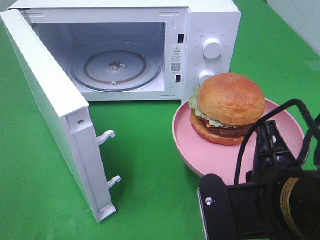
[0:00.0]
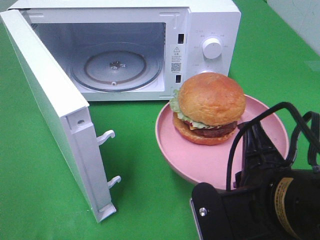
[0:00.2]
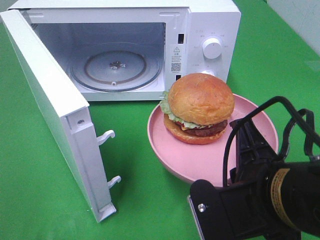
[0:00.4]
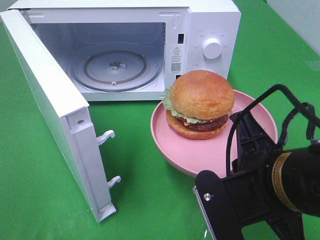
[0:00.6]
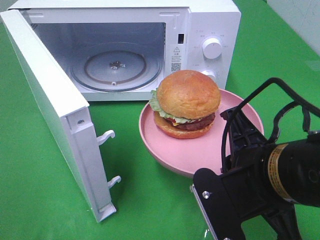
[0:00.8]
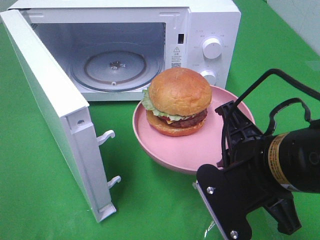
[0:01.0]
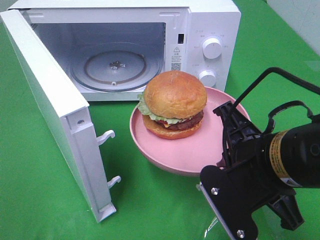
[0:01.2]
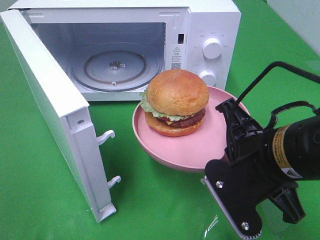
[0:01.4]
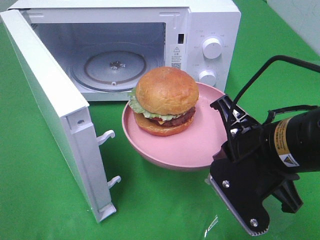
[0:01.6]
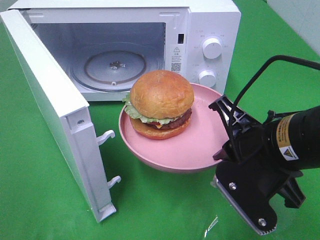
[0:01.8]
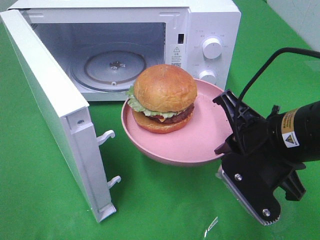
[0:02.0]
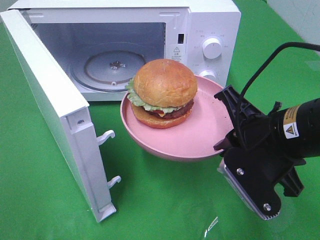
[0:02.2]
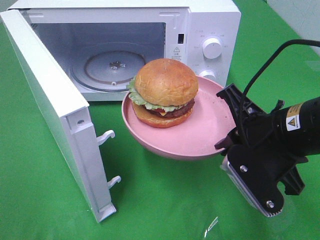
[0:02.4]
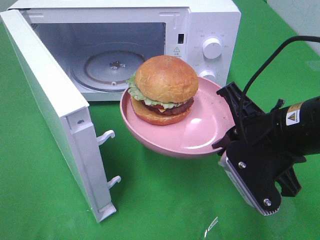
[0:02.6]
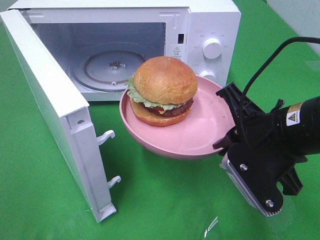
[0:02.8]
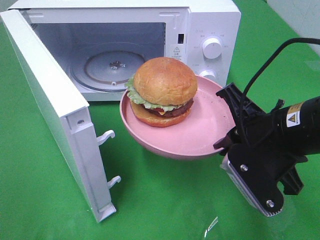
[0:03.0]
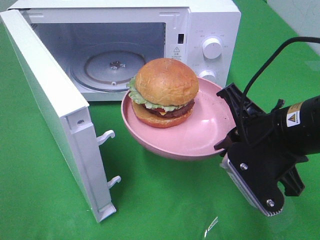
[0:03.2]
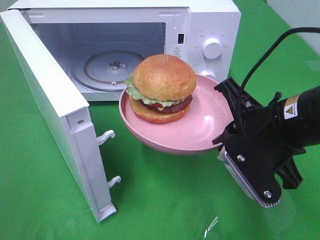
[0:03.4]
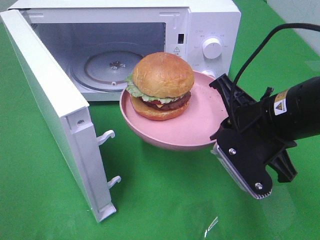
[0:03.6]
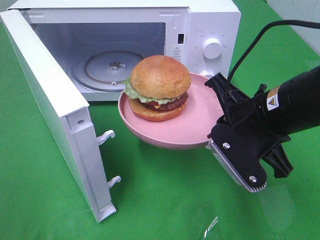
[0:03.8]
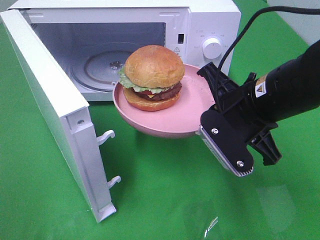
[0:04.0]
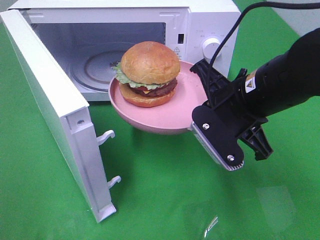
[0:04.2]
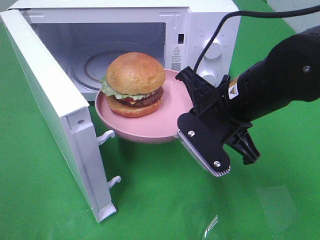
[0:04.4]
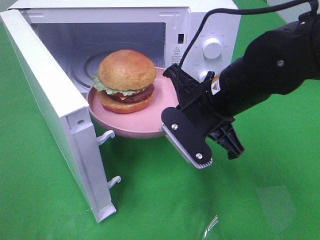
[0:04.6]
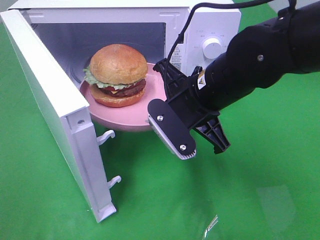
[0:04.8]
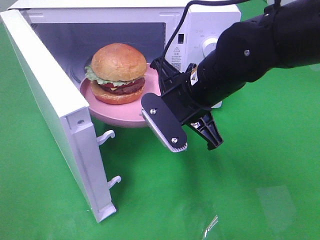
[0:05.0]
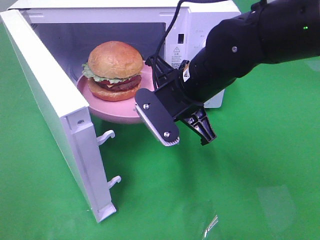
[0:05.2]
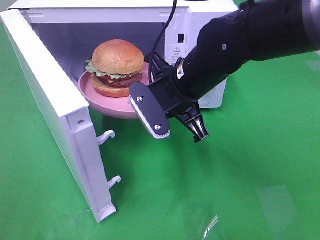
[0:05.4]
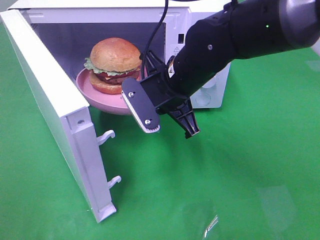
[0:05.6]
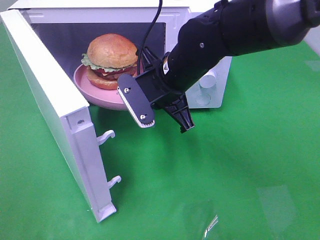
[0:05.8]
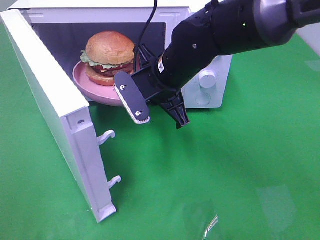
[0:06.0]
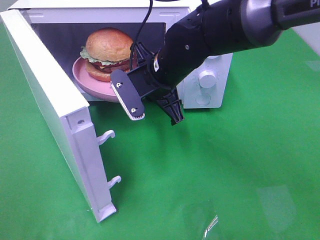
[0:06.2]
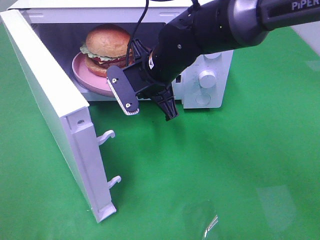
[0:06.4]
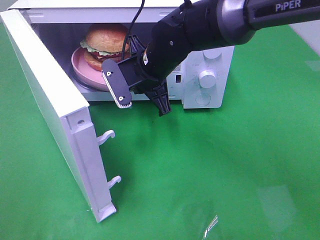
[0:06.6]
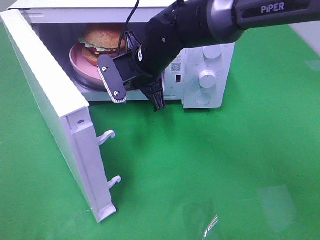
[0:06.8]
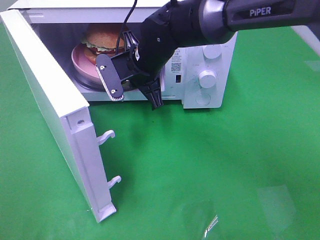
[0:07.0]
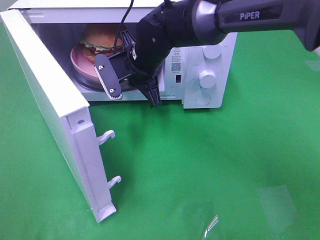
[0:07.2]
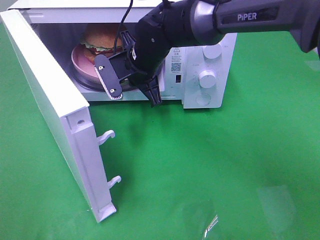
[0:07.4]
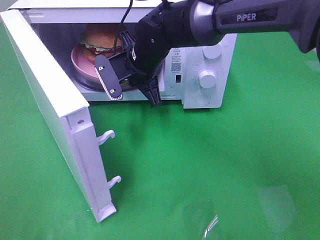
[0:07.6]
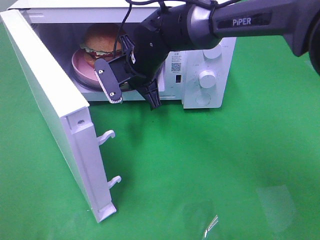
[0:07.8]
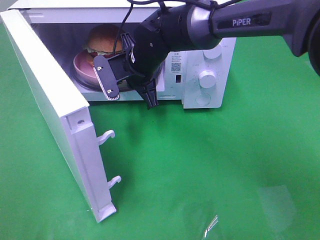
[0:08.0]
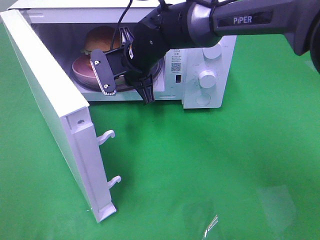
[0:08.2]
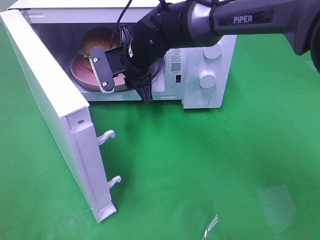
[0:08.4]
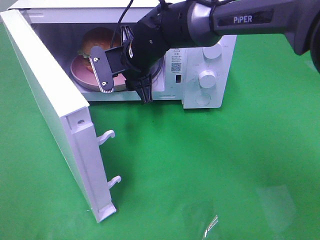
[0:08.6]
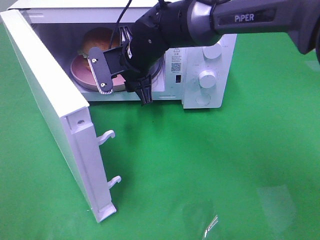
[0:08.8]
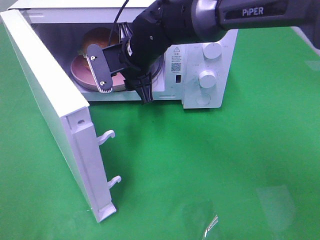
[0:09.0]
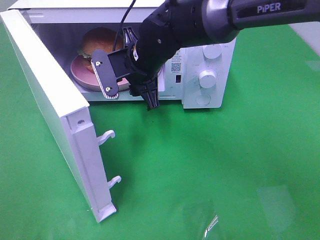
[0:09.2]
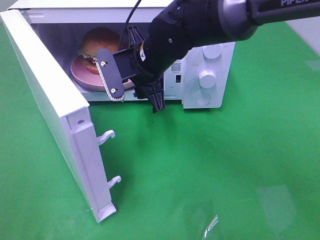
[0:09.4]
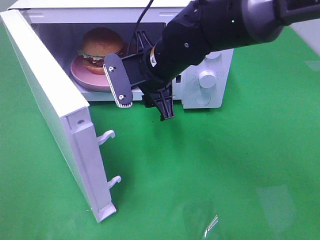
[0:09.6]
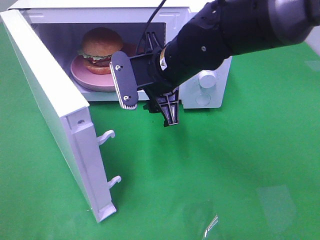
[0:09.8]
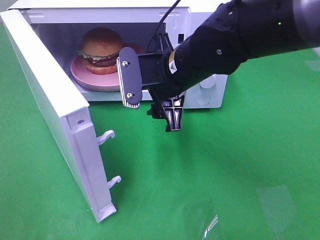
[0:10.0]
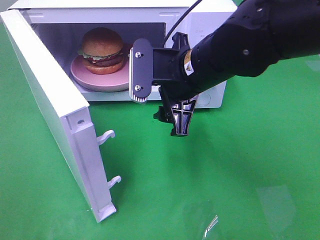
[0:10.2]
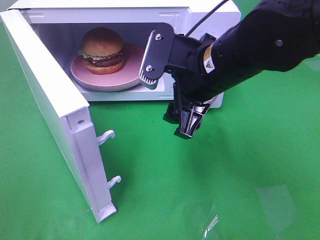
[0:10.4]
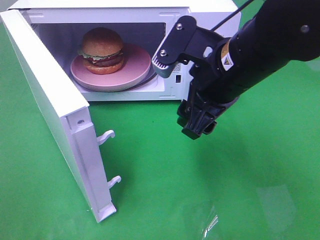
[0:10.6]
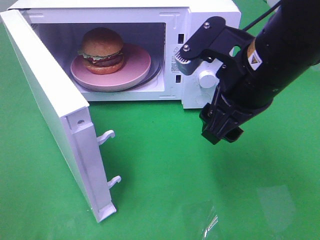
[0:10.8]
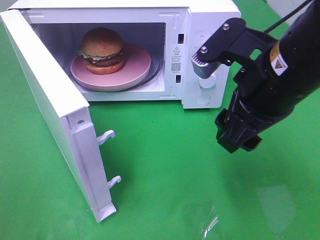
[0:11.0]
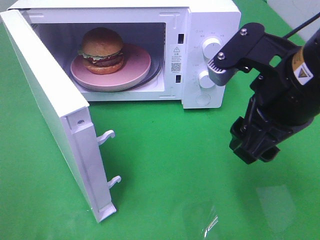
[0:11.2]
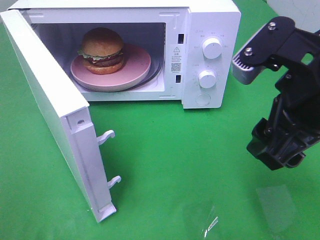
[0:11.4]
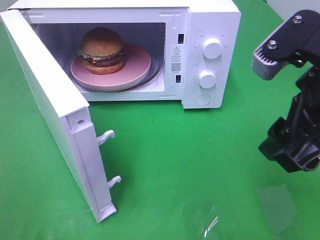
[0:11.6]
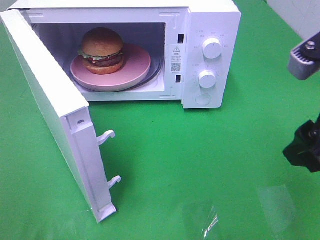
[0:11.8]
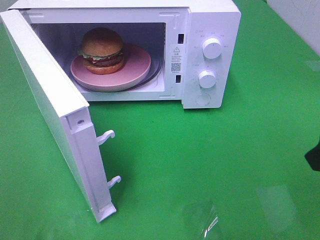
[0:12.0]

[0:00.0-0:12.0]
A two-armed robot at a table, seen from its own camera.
Task of the whole recording: Heat the burger.
Step, 0:00.0 to 0:08.6: Right hand: place the plate in the microwave.
0:00.0 to 0:01.6: The right gripper is displaced forward by about 5 cm.
0:01.6 to 0:03.0: The grippers make only small movements.
0:03.0 to 0:04.4: The right gripper goes about 5 cm to the left.
0:04.4 to 0:06.0: The right gripper goes about 10 cm forward and to the left.
0:06.0 to 0:07.6: The right gripper heads forward, covering roughly 5 cm.
0:07.6 to 0:09.0: The right gripper opens.
0:09.0 to 0:10.4: The right gripper is displaced backward and to the right by about 15 cm.
0:10.4 to 0:12.0: The right gripper travels to the right and backward by some 20 cm.

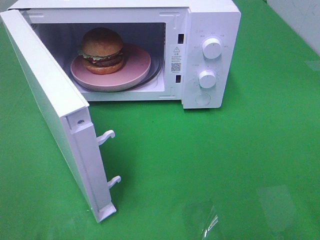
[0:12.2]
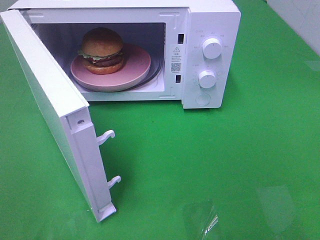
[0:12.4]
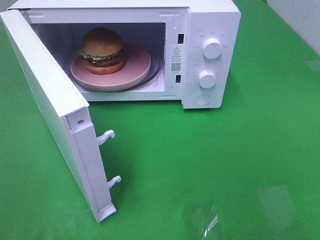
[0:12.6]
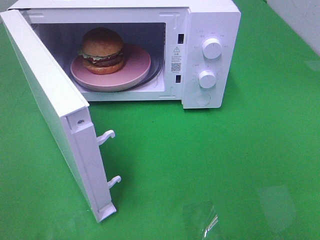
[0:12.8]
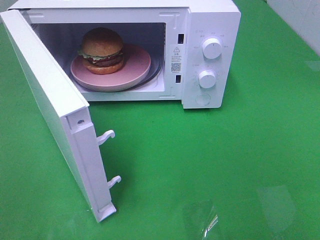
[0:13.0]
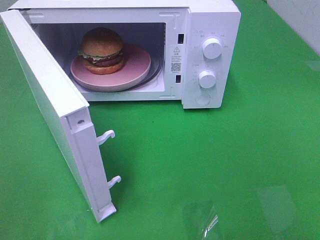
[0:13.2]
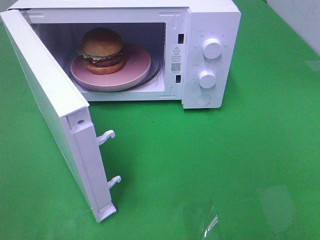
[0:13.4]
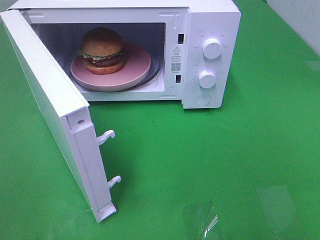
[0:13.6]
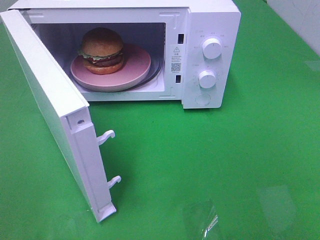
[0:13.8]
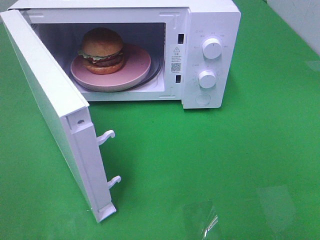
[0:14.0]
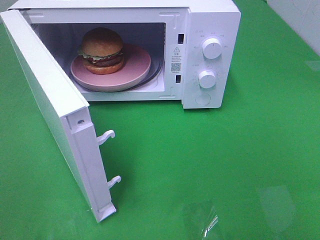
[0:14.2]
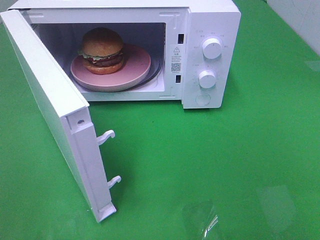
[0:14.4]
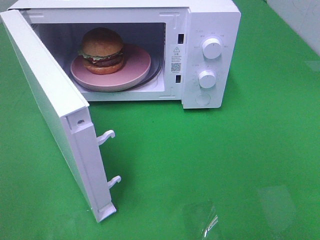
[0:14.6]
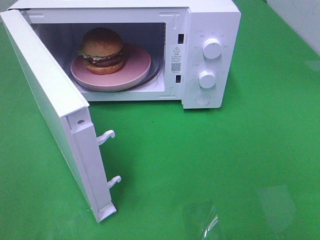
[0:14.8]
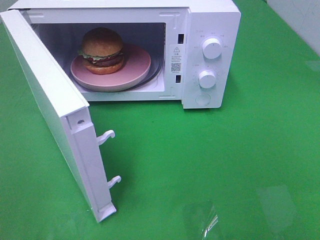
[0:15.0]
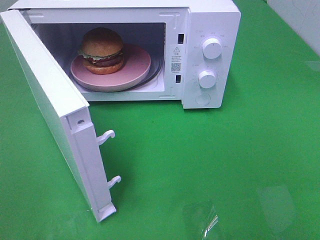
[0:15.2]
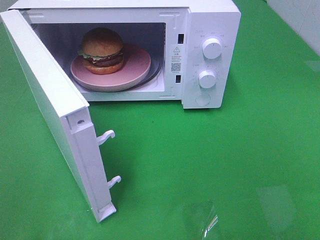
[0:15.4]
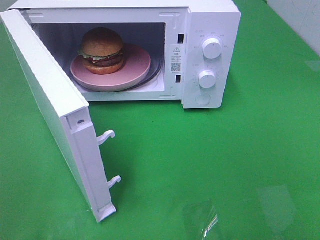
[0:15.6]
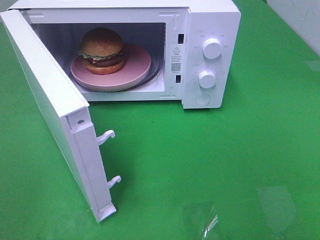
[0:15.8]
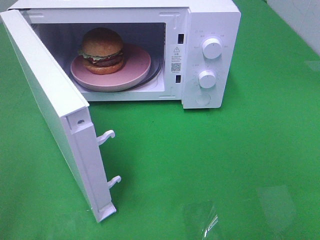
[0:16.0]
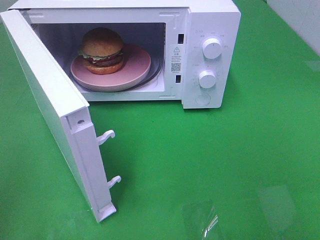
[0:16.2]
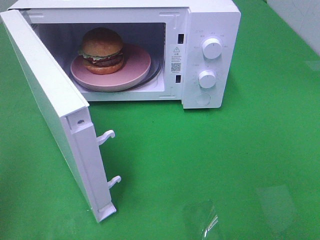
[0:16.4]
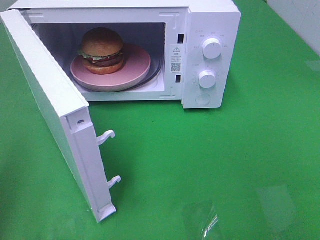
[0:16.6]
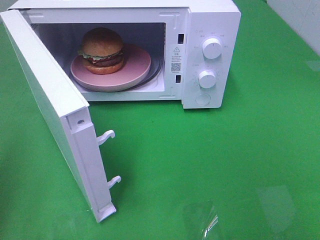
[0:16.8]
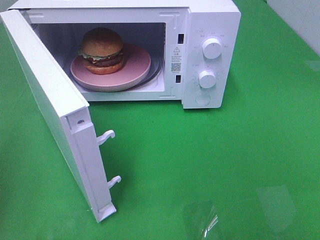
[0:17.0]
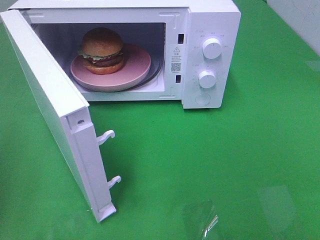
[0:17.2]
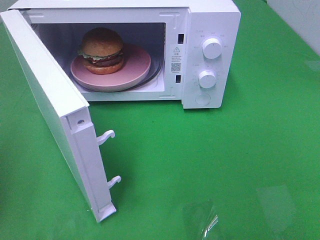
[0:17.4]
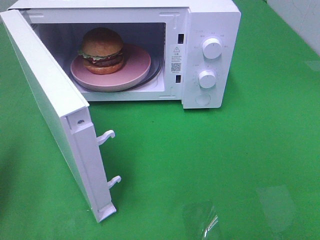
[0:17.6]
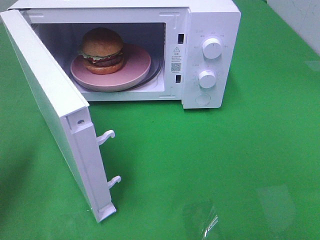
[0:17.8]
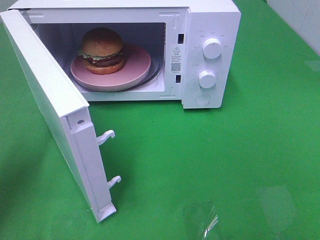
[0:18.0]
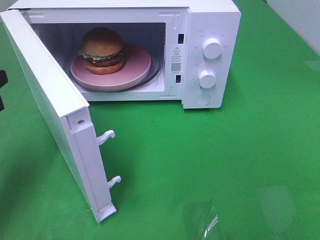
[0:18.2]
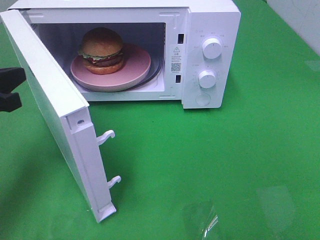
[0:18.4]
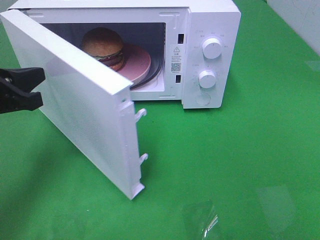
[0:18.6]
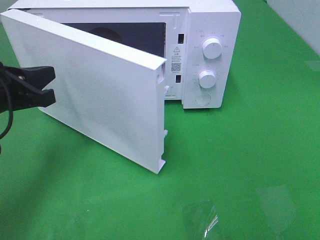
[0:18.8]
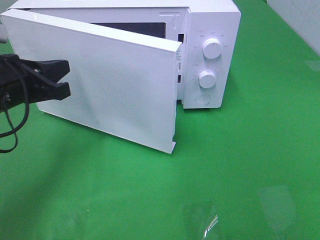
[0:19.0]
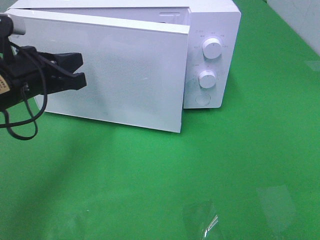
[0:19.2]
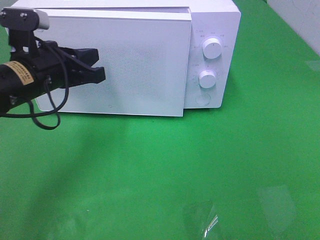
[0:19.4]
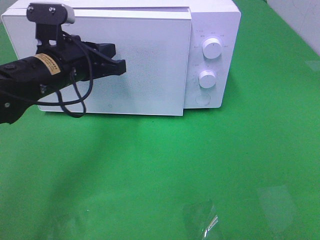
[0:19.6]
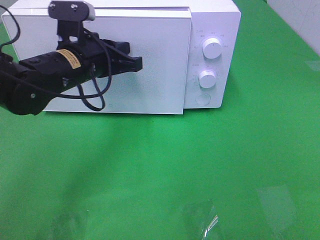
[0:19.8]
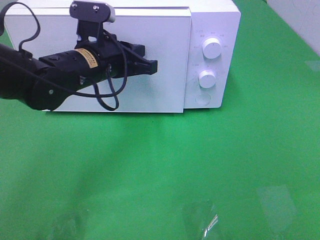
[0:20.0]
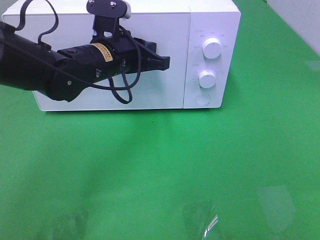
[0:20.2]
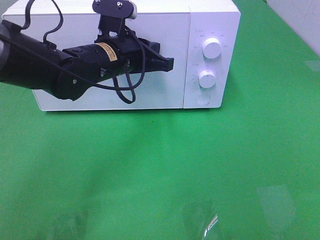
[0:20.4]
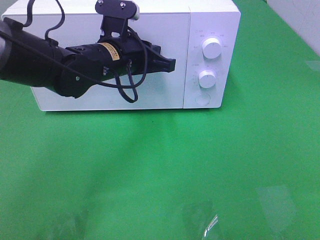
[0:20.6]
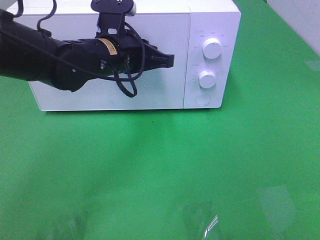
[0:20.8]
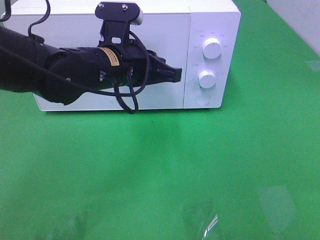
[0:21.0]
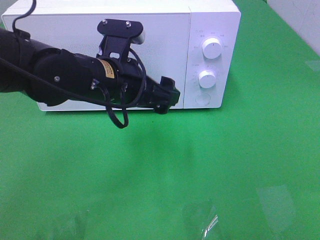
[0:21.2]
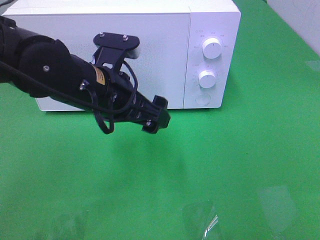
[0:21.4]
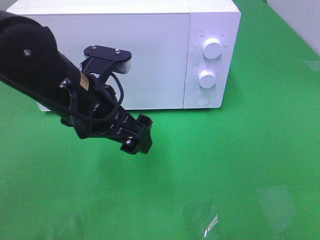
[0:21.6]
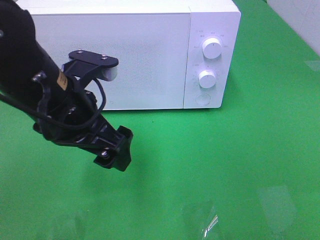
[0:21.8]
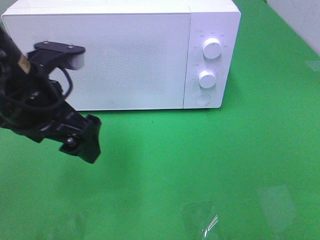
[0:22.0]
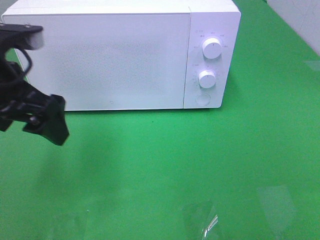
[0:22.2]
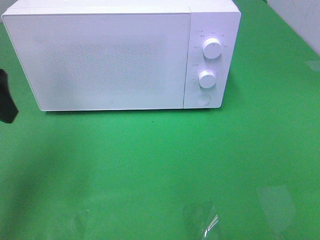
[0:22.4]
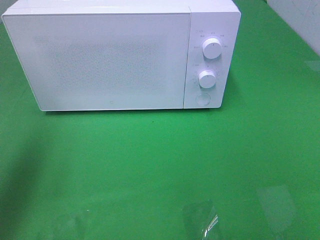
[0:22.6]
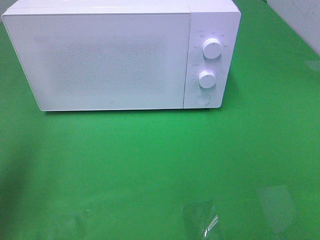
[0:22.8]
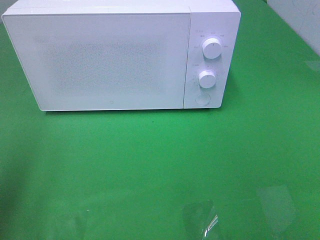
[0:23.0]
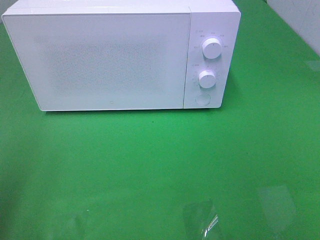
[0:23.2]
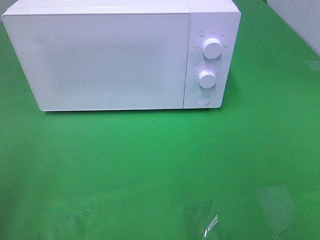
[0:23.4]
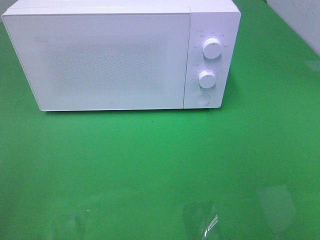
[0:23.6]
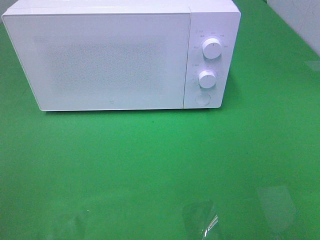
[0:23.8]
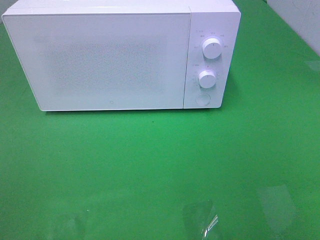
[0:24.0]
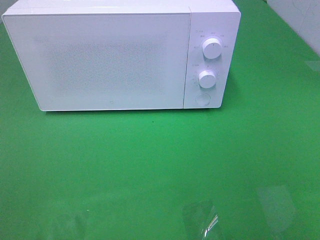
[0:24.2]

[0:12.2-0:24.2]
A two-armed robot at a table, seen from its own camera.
Task of the whole recording: Heat the burger.
Step, 0:12.2 to 0:21.2: Left hand: close the microwave door.
0:13.8 to 0:15.2: Both grippers stay about where they are.
0:16.6 to 0:18.2: The left gripper moves downward and forward, approximately 20 cm.
0:18.2 to 0:19.8: The left gripper moves to the right and forward, approximately 20 cm.
0:19.8 to 0:21.2: The left gripper moves backward, roughly 5 cm, and opens its fingers.
0:21.2 to 0:22.6: The left gripper goes approximately 25 cm to the left and upward.
0:22.6 to 0:24.2: The left gripper heads backward, covering some 20 cm.
